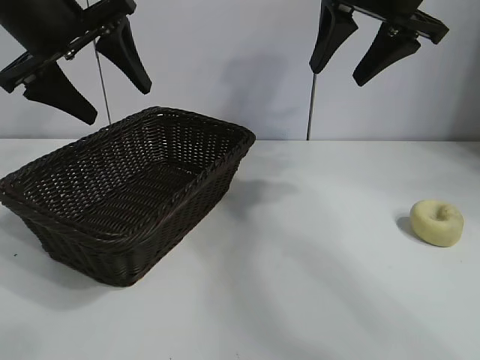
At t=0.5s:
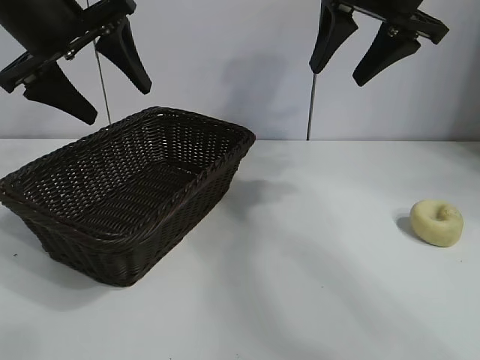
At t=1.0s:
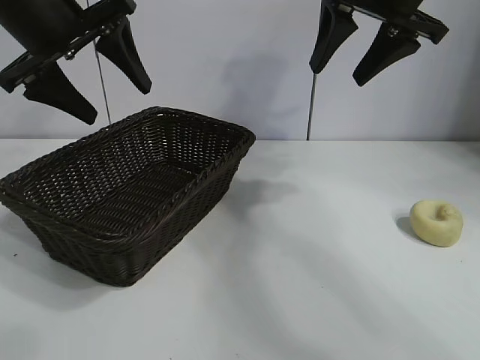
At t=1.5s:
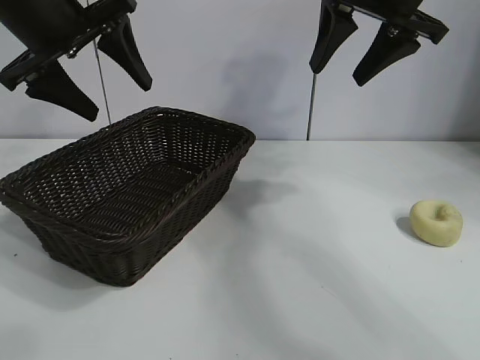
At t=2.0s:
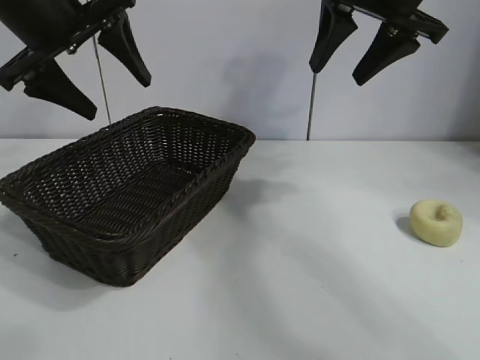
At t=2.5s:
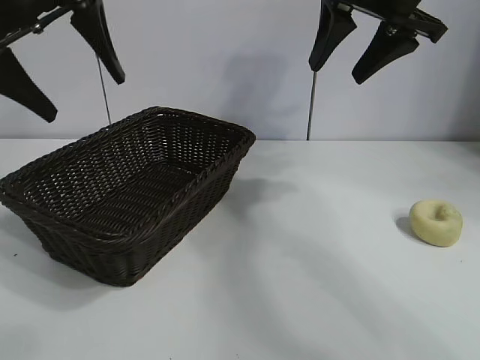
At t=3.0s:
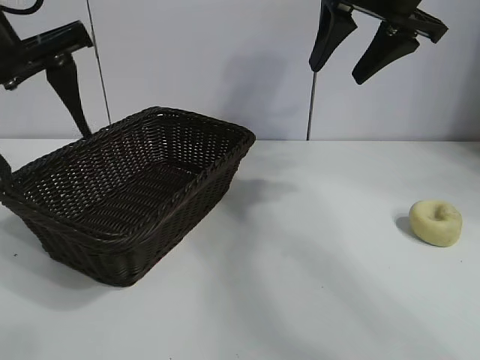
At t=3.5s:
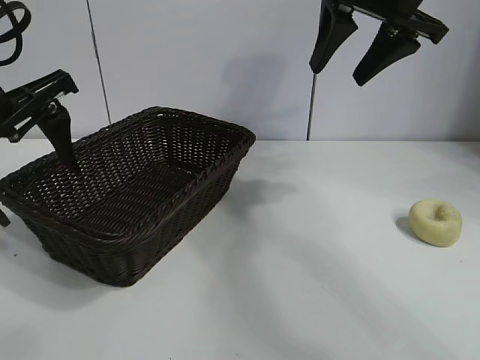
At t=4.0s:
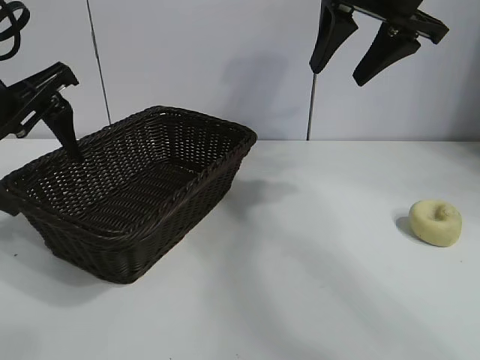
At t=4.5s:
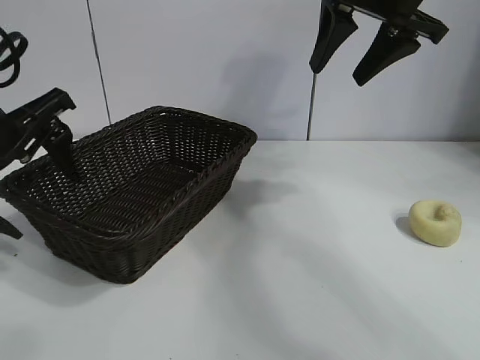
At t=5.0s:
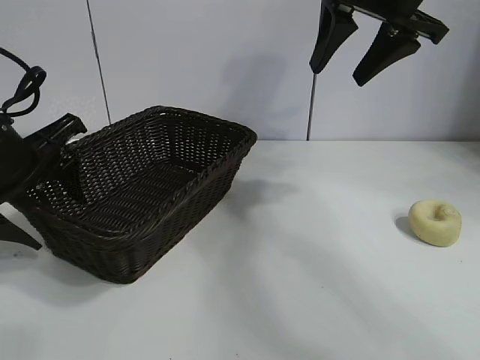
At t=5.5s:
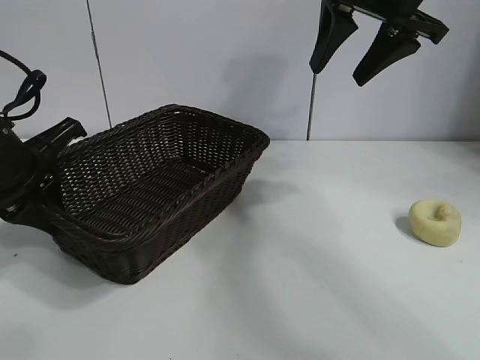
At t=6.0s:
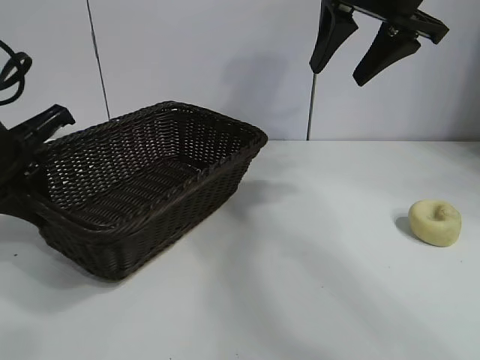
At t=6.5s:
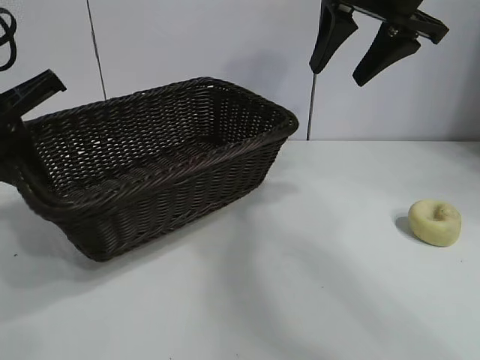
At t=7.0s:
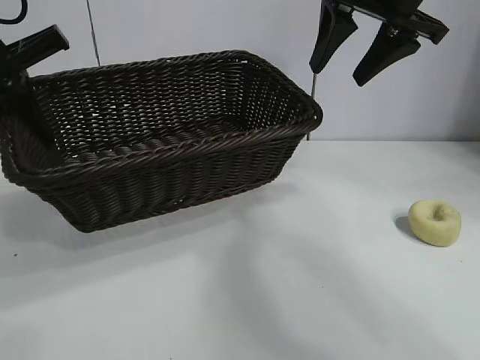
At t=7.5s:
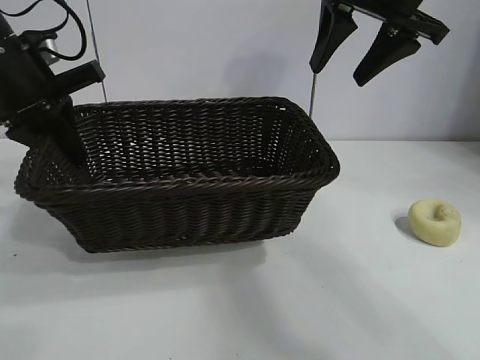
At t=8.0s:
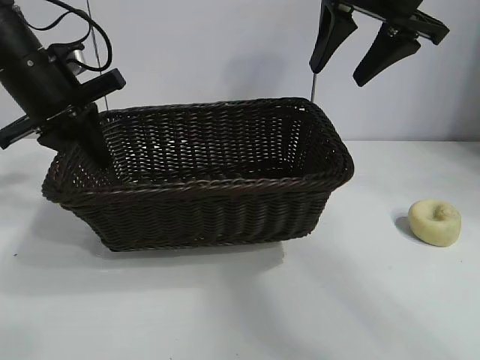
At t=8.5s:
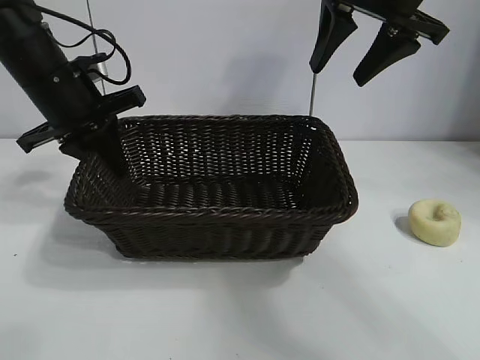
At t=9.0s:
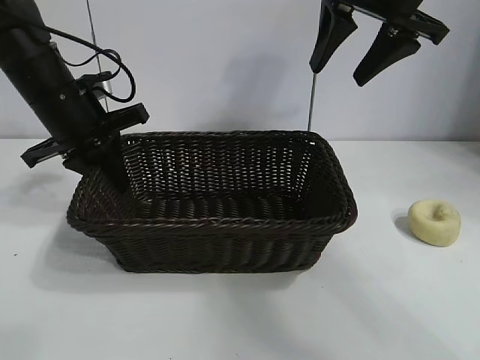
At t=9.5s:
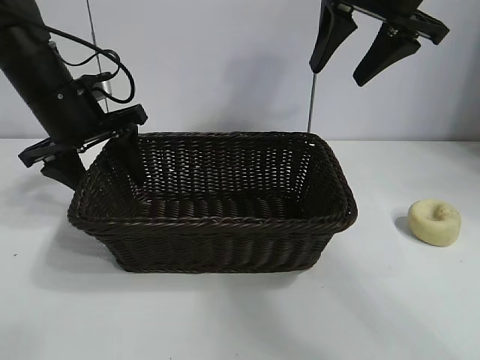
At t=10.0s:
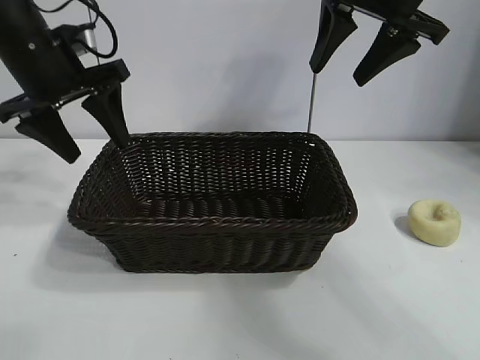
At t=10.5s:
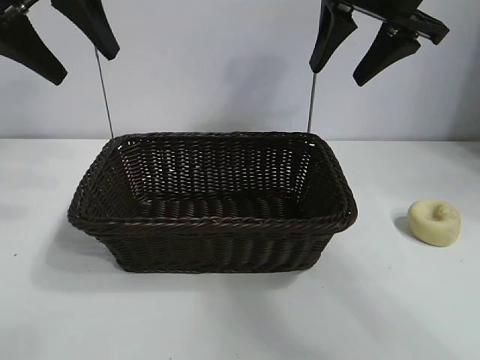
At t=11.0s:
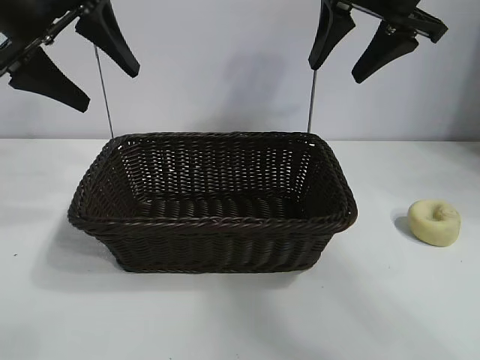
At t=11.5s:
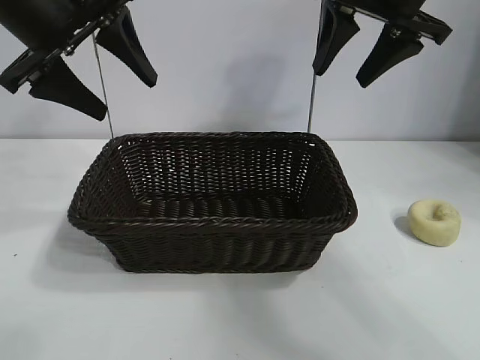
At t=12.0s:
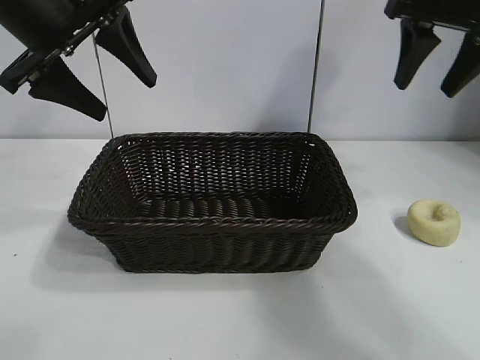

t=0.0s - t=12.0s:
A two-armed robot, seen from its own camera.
Task of the whole recording: pick up the egg yolk pastry and put it into the basket.
Step, t=1.5s - t=5.0s: Grasp the basket with left gripper.
Step, t=5.5s - t=9.5s: Place the basket in the center of view with left gripper.

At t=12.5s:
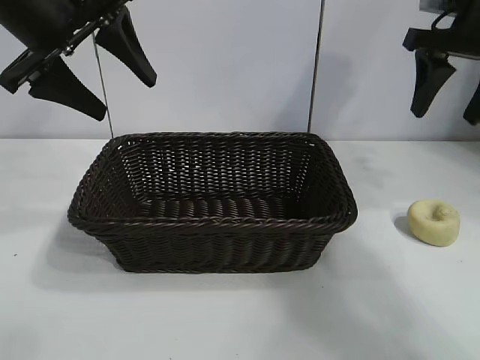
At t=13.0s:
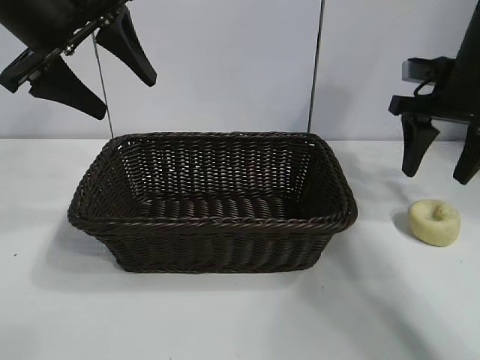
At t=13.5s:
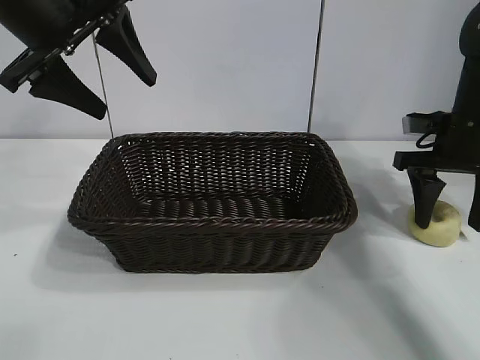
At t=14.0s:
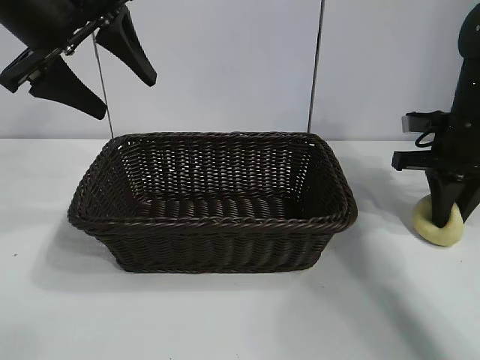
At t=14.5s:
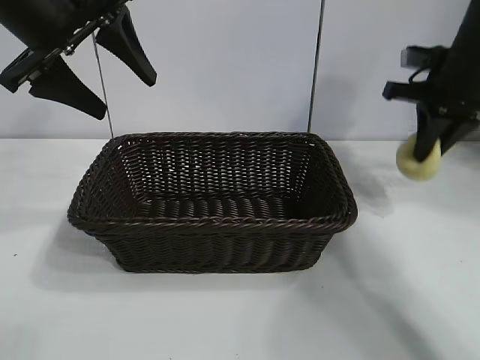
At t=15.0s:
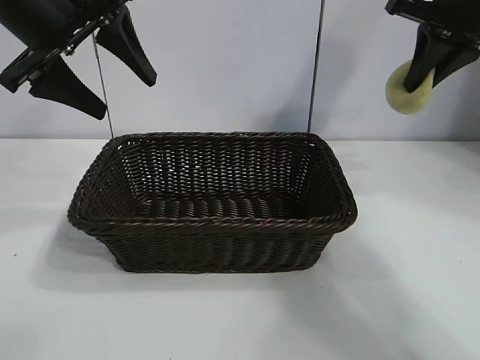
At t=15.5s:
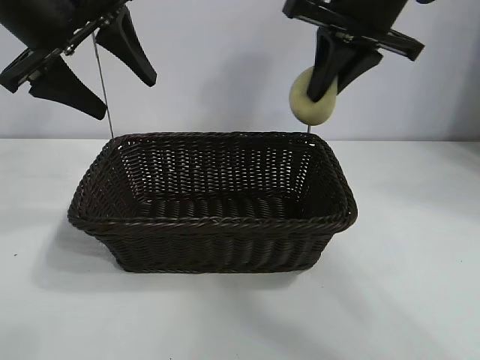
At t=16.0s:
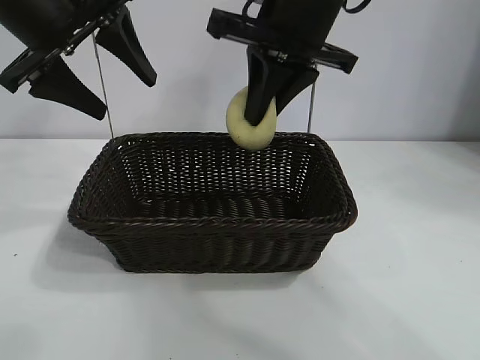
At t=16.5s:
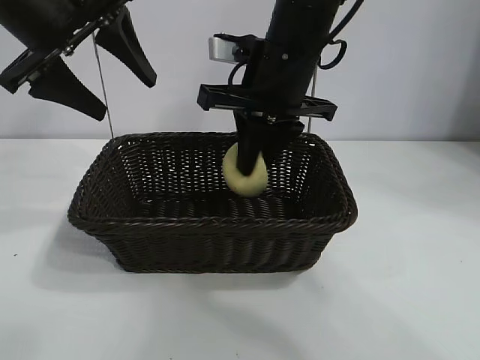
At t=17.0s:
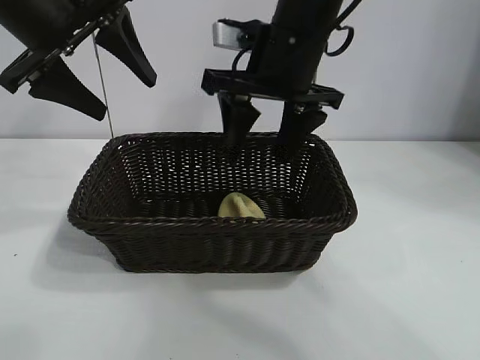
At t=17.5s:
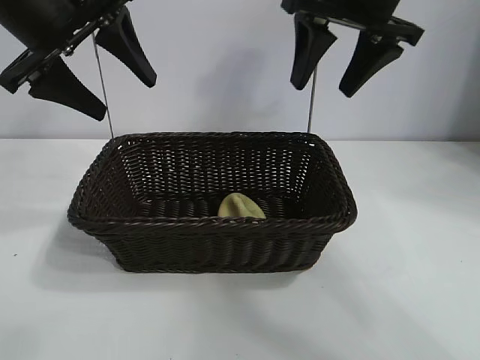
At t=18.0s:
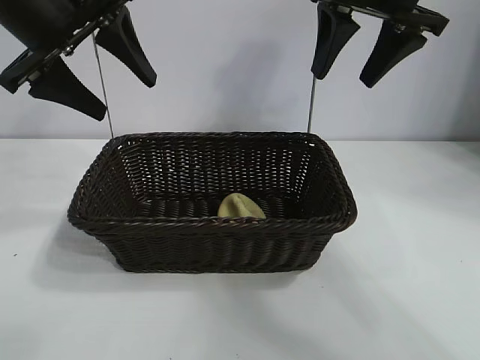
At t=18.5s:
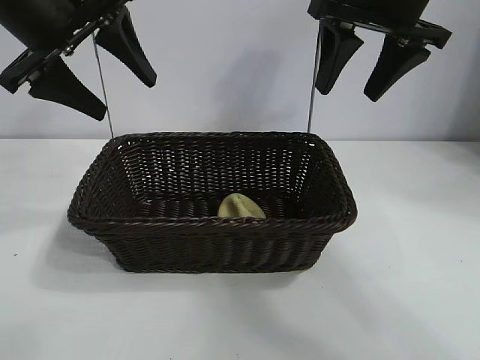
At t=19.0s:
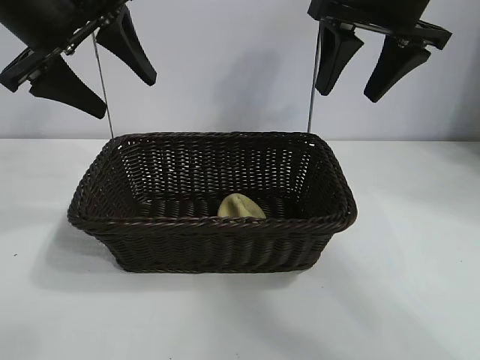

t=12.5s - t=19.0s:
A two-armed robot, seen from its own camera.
Task of the whole recording: pick up the egg yolk pastry and put it into the basket.
Step, t=14.5s - t=16.5s: Place the egg yolk pastry in the basket with right gripper.
